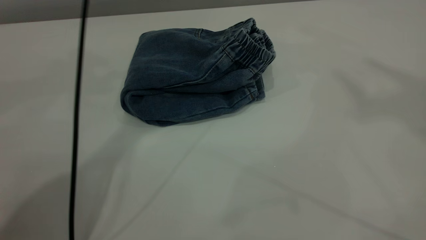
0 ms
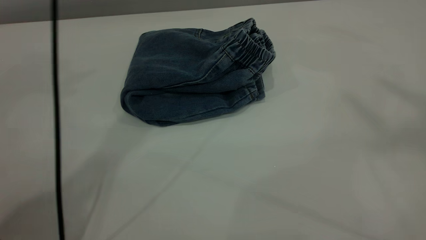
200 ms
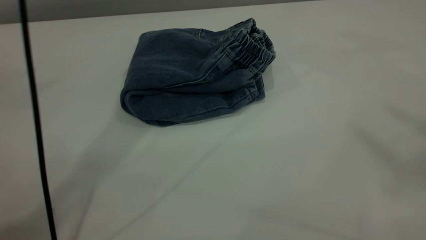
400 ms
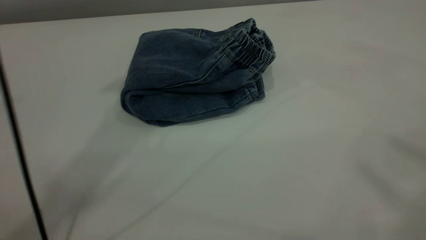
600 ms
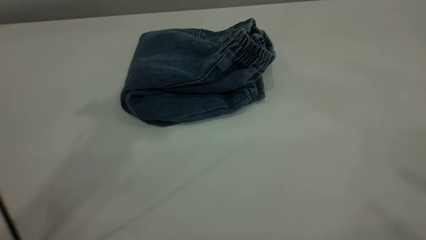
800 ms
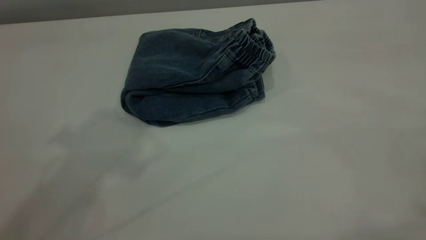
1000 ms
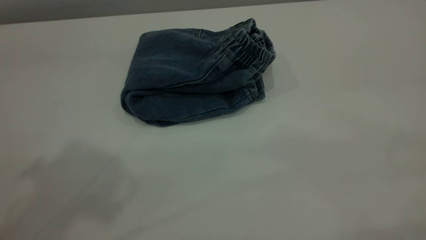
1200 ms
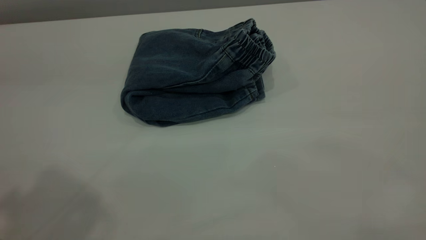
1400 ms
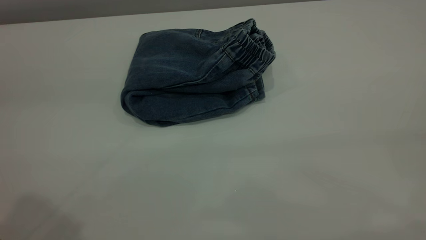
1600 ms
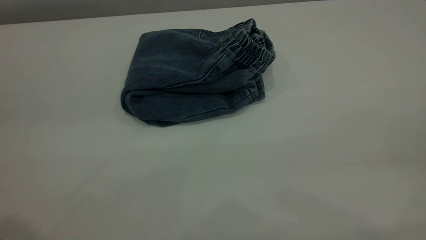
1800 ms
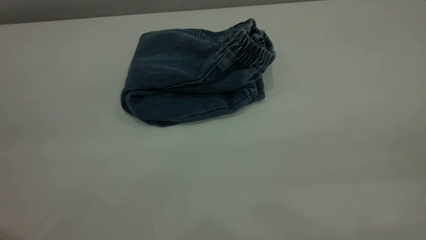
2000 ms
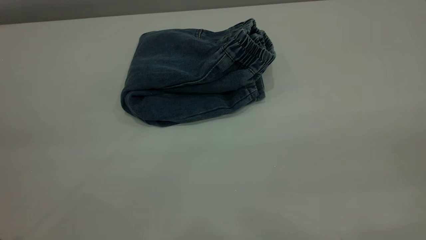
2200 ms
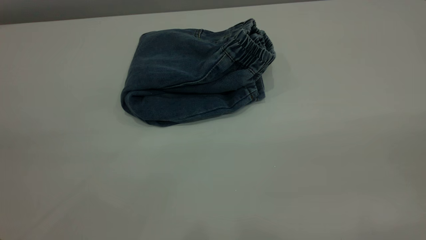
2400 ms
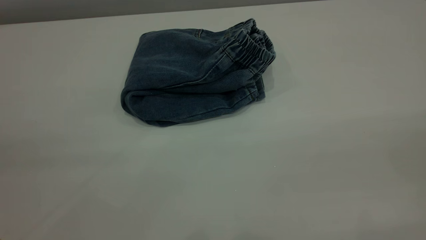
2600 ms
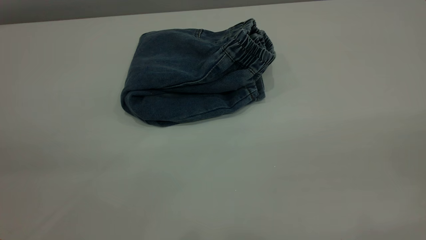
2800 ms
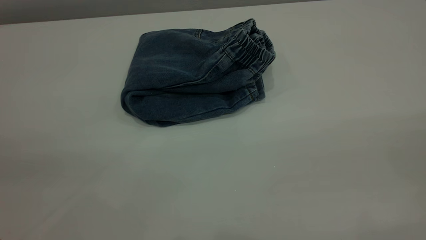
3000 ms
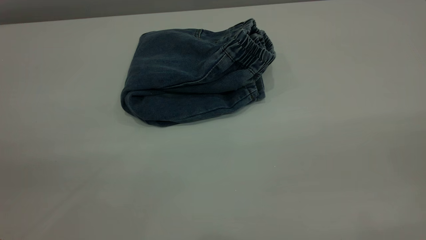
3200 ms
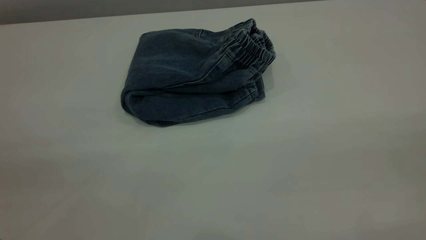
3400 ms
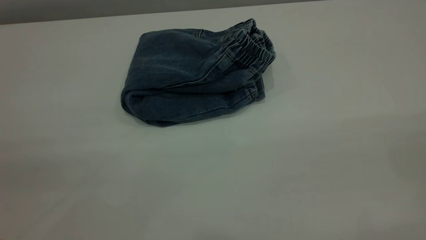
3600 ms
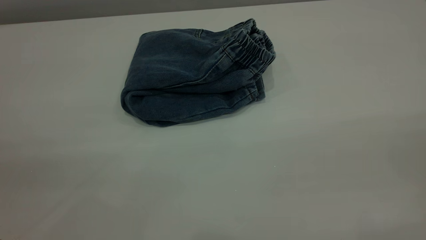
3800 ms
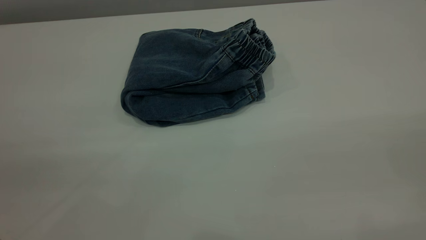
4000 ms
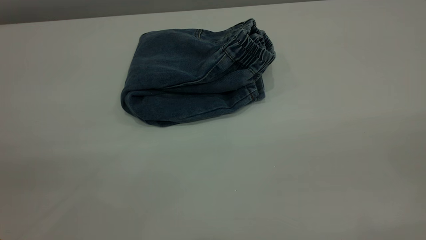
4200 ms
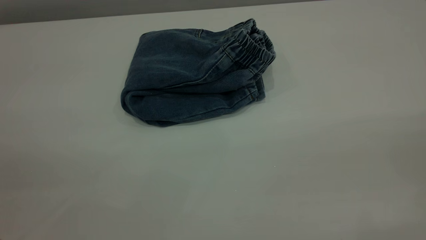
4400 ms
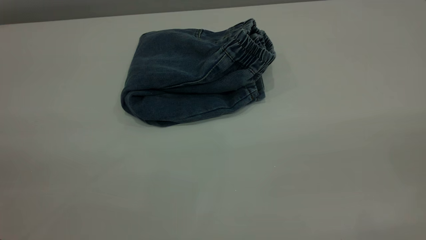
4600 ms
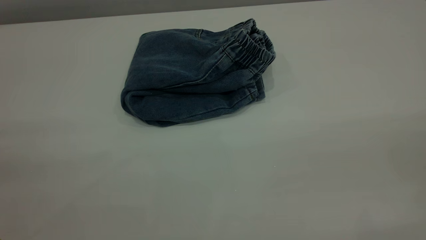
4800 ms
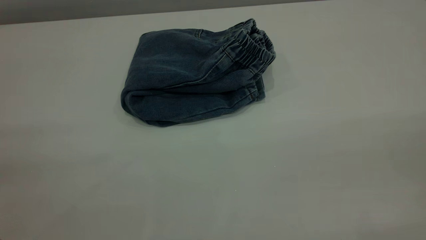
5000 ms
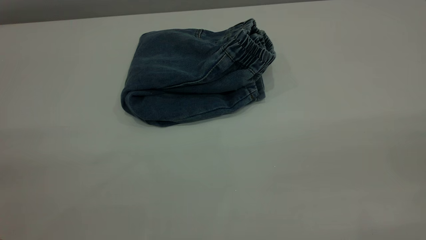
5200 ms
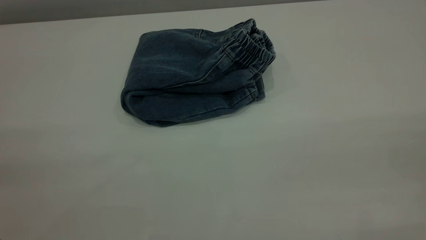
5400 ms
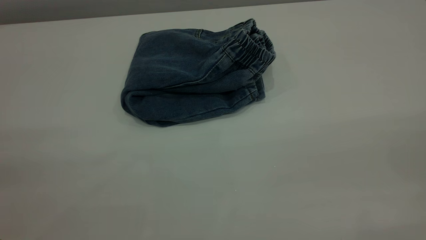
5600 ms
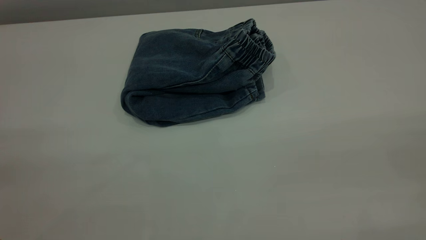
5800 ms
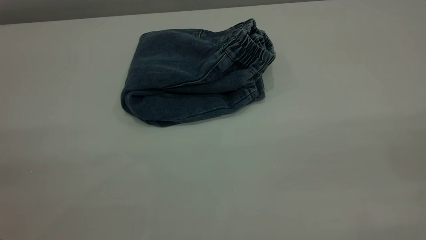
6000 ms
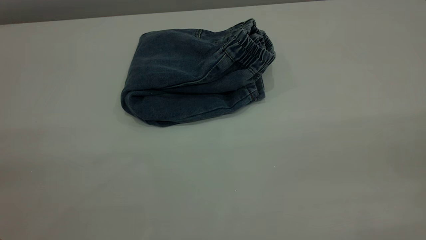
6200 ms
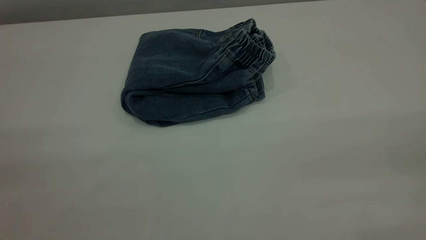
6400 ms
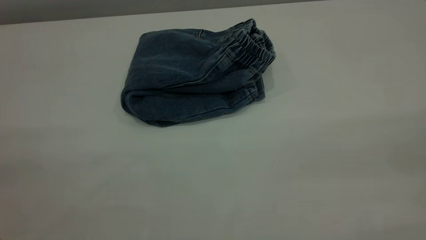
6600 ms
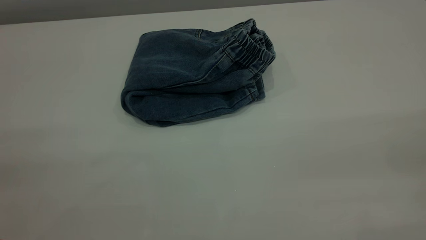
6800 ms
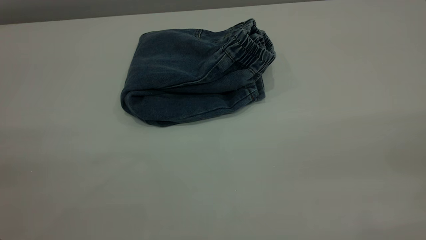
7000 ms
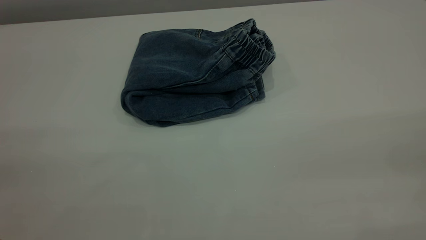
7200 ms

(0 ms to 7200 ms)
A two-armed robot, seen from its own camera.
0 ms - 1400 ms: The left gripper is displaced backward, to the left and upward by about 35 cm.

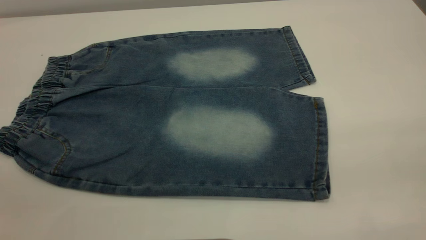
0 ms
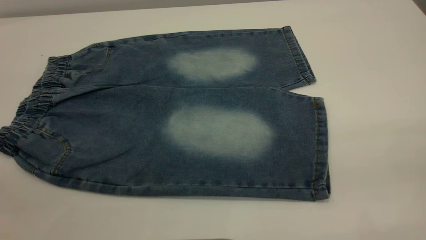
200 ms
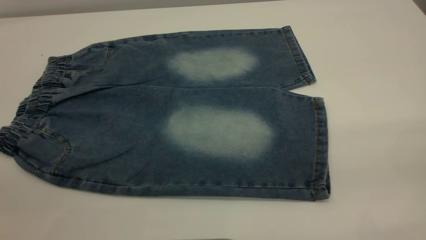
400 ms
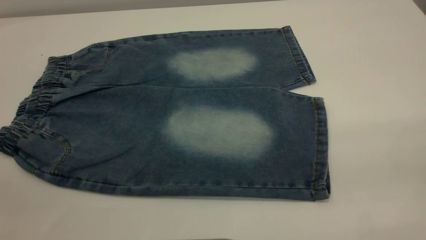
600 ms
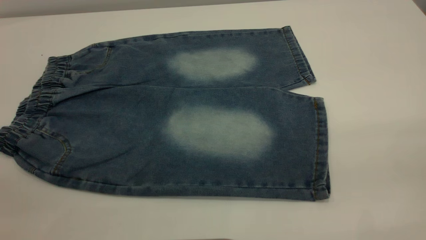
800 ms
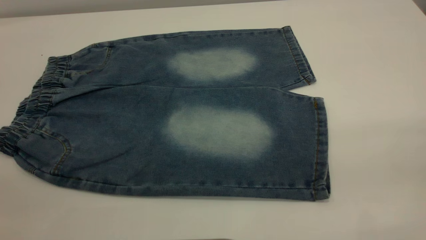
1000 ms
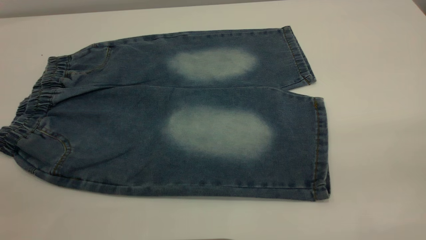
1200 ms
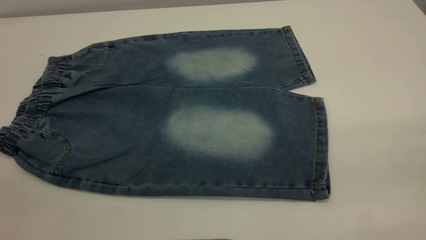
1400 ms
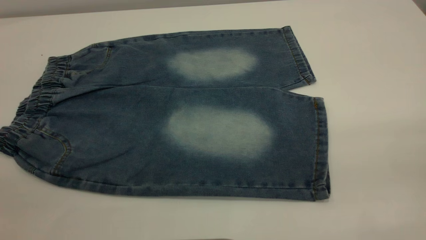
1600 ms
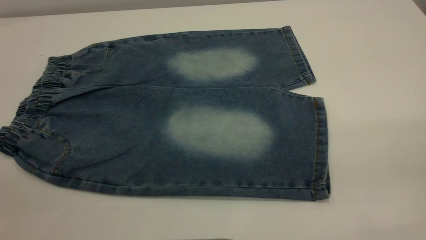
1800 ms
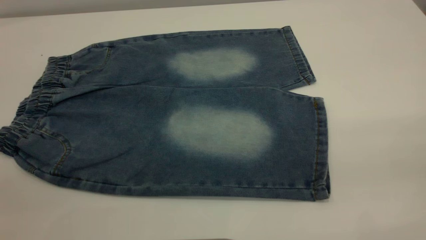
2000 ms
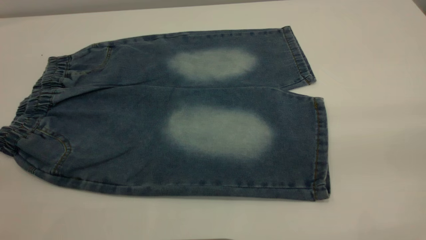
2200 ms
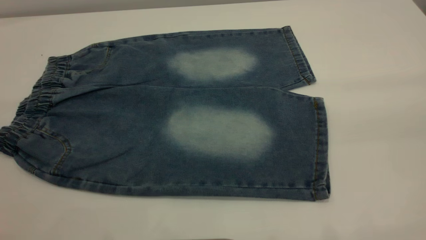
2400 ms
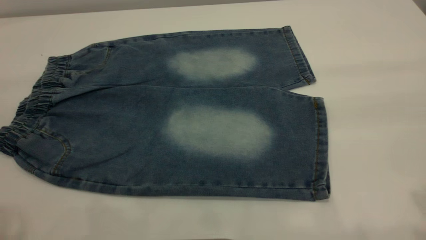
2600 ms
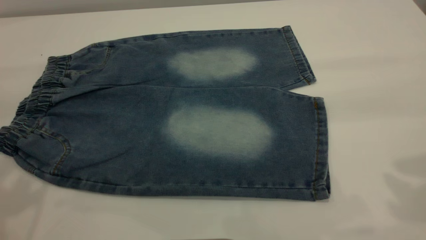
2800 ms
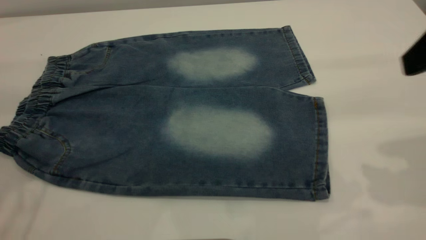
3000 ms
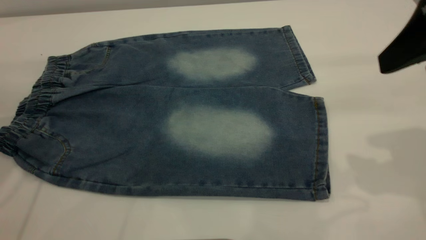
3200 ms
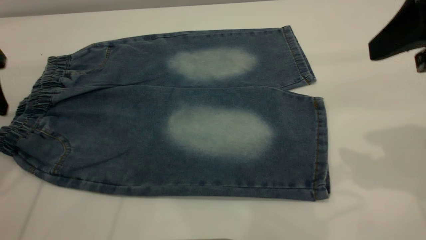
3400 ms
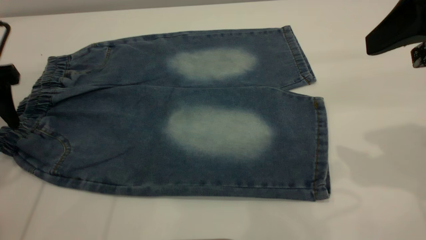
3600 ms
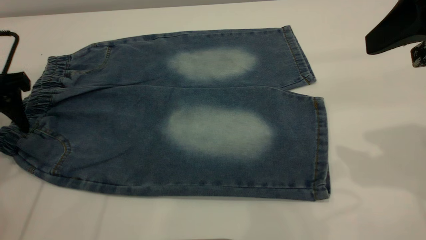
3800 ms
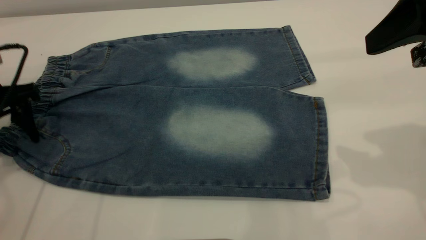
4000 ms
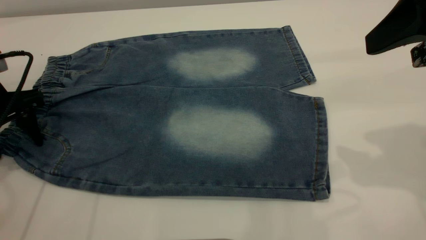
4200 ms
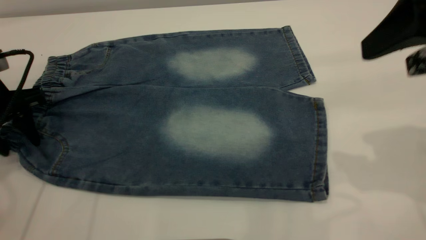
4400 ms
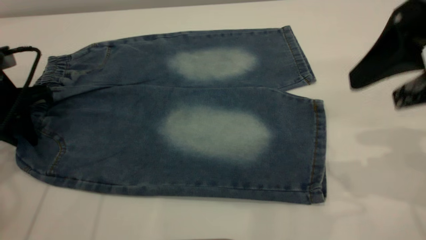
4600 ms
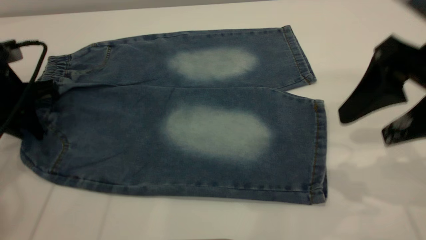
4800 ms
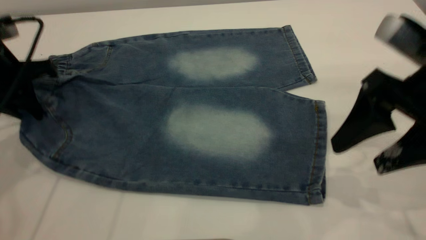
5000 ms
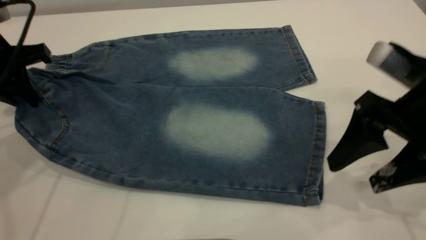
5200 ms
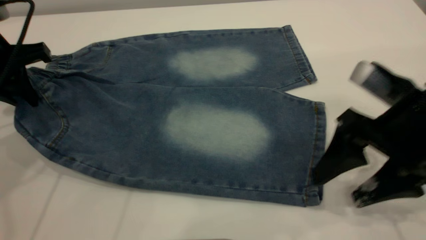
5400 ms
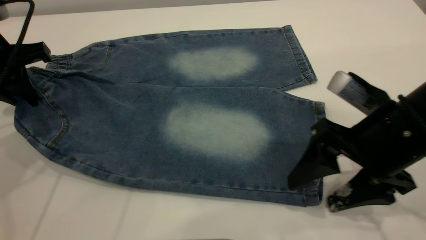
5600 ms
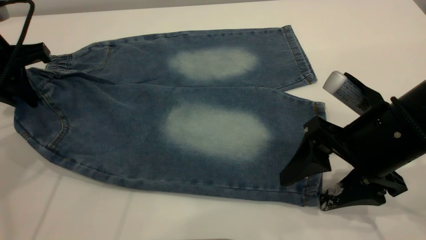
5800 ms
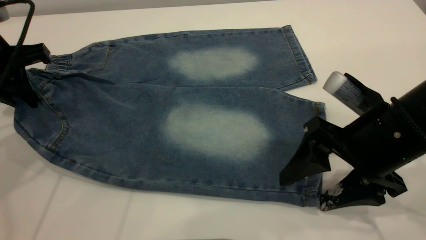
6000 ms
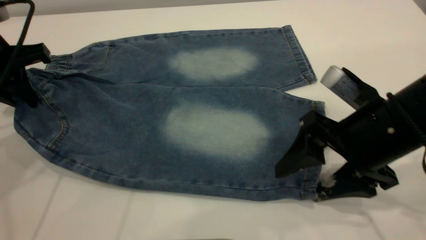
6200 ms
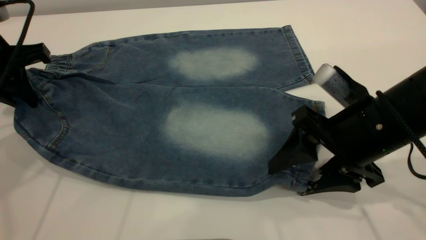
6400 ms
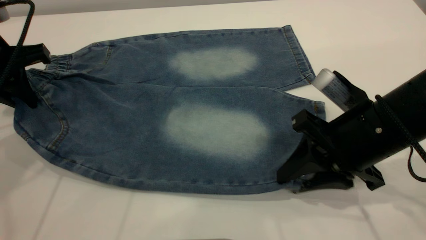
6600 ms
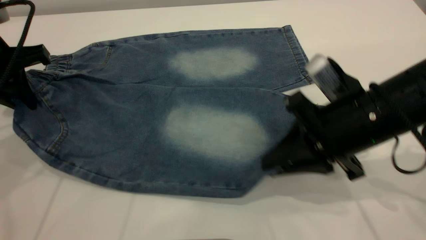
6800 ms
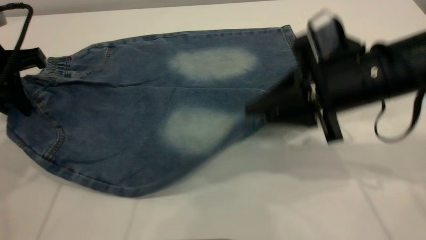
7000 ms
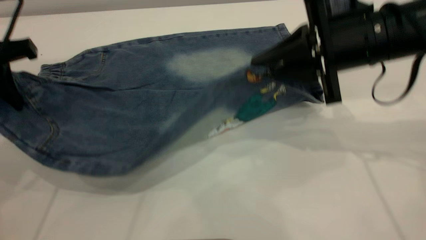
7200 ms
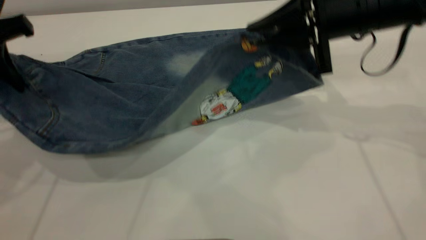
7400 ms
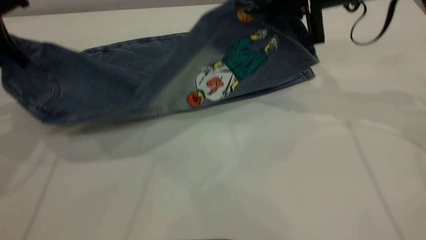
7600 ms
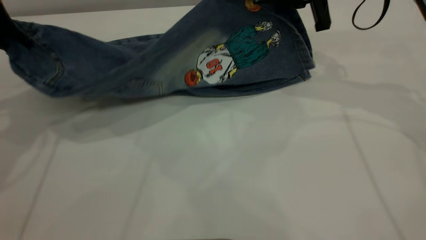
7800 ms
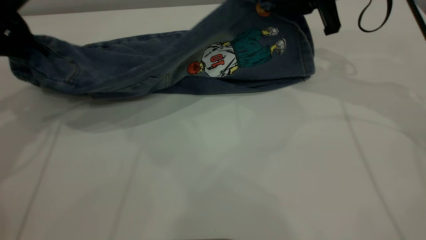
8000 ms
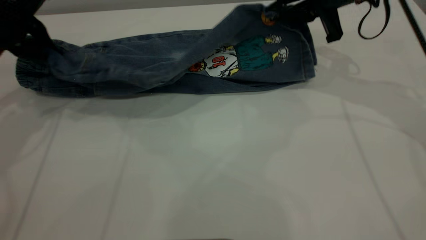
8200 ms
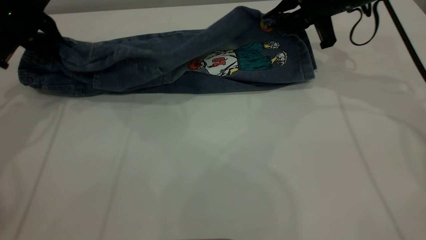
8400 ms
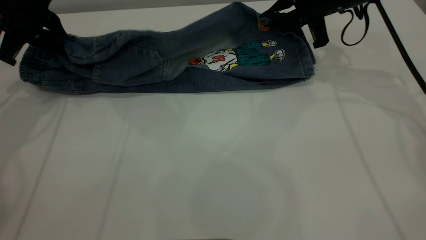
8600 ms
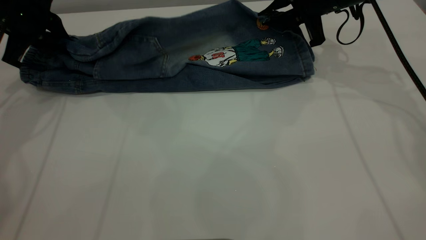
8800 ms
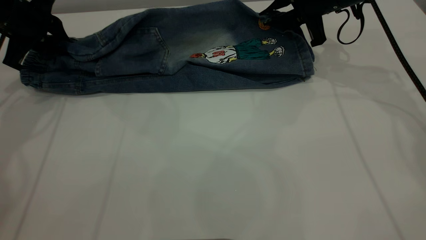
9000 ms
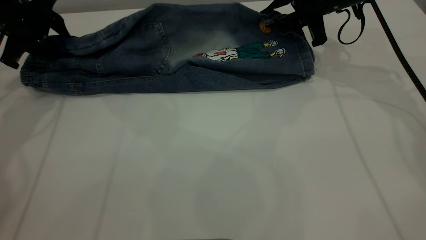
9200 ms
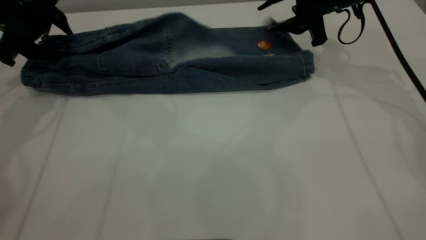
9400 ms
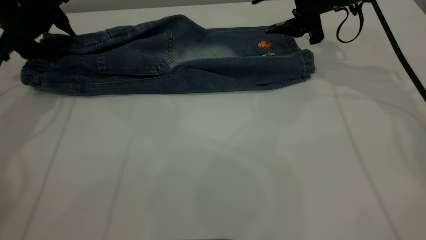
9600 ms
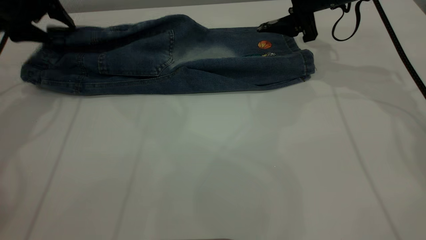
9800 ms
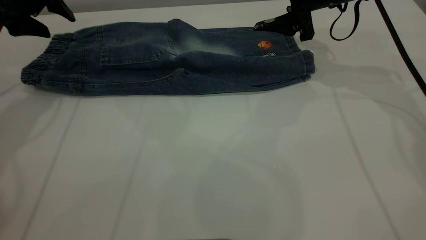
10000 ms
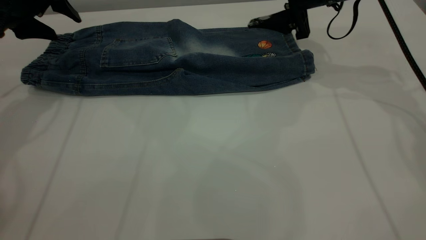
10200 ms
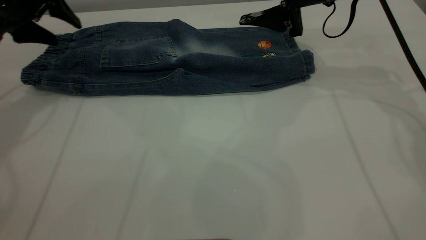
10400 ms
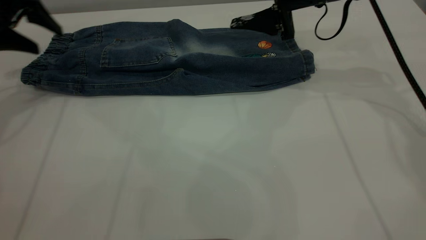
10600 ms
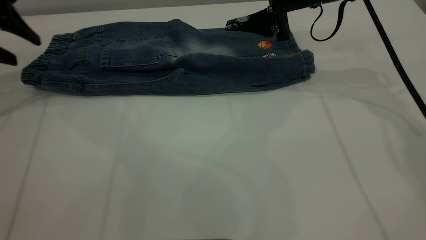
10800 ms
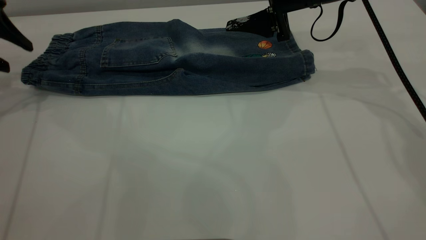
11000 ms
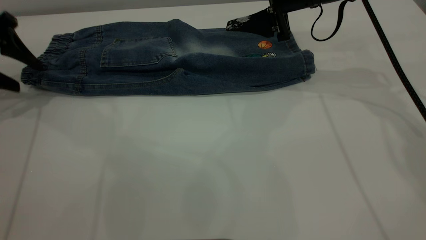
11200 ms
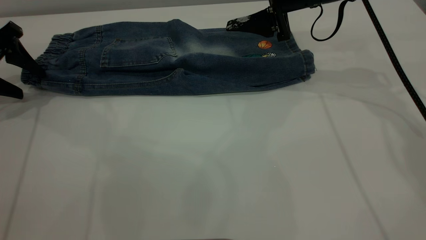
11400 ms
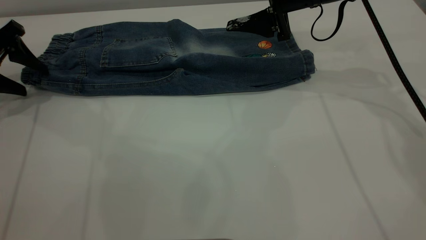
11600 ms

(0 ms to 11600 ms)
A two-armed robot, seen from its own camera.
Step, 0 ms - 10800 ms: Fold the bottom of the pants upward.
0 ms - 1400 ms: The two grippers keep their place.
2800 ms - 4400 ms: The left gripper shifts roughly 25 cm downward and forward, and closes up, while the right gripper shifts by roughly 5 cm.
4400 ms - 5800 ms: The left gripper shifts about 5 cm upward, and closes. Meanwhile the right gripper goes some 15 cm downward.
5800 ms - 7200 ms: The right gripper travels forward and upward by some 10 cm, and closes up.
7200 ms - 8800 ms: The two grippers go about 15 cm forward.
8800 ms - 10200 ms: The left gripper opens. The right gripper opens up.
10200 ms - 11600 ms: The left gripper heads to the left and downward, covering roughly 10 cm.
